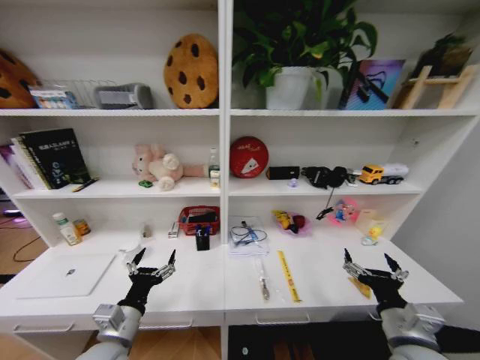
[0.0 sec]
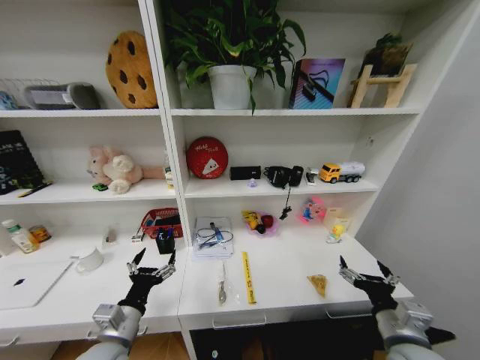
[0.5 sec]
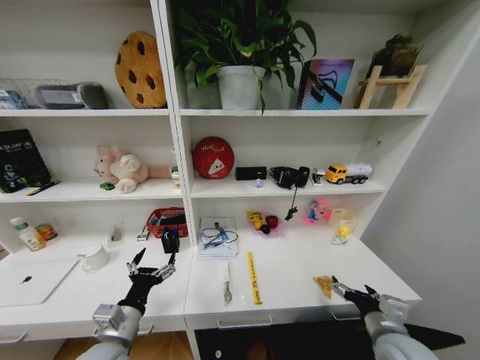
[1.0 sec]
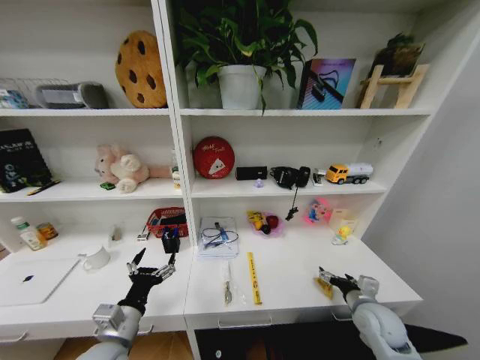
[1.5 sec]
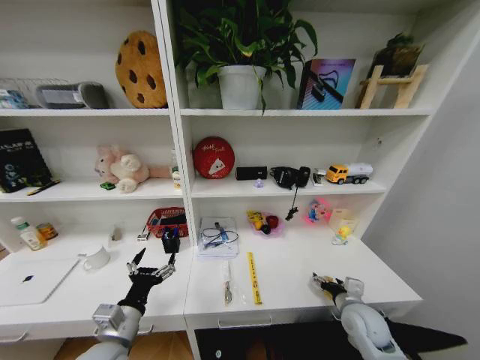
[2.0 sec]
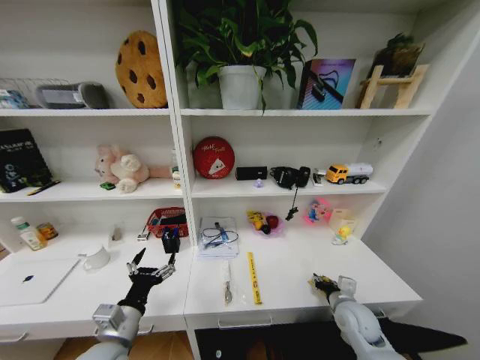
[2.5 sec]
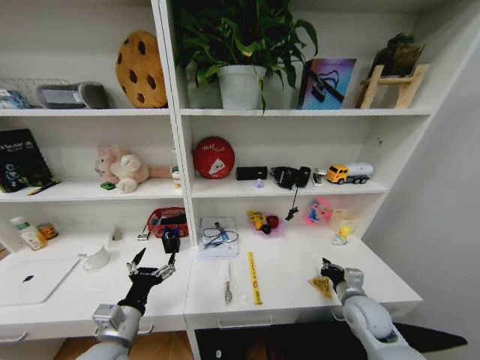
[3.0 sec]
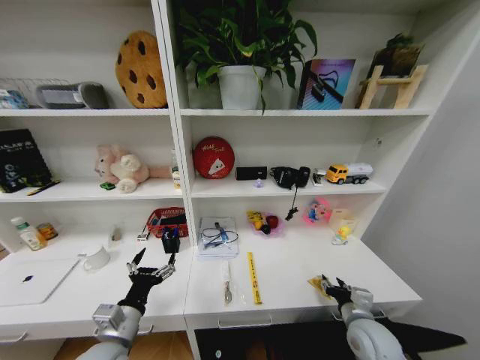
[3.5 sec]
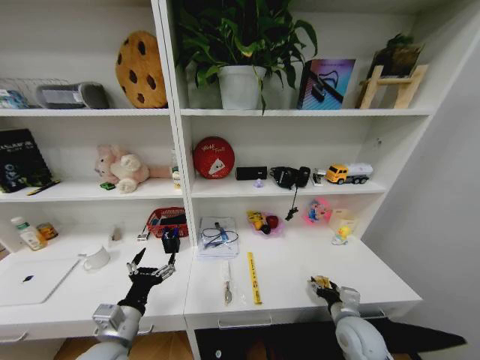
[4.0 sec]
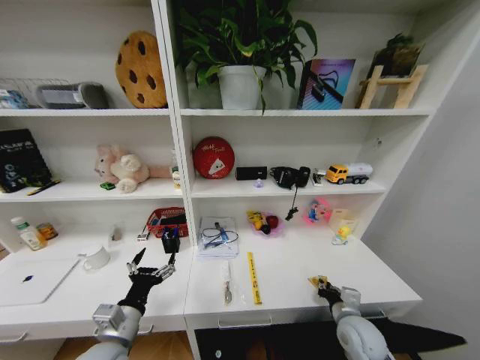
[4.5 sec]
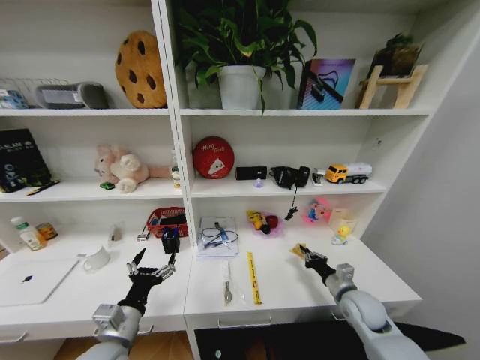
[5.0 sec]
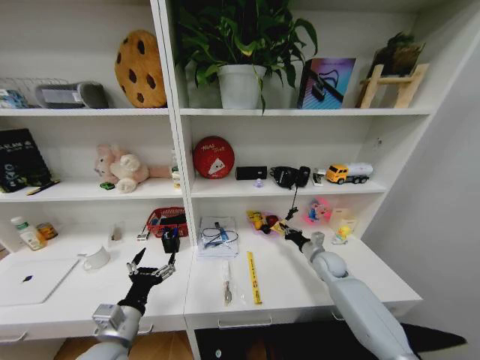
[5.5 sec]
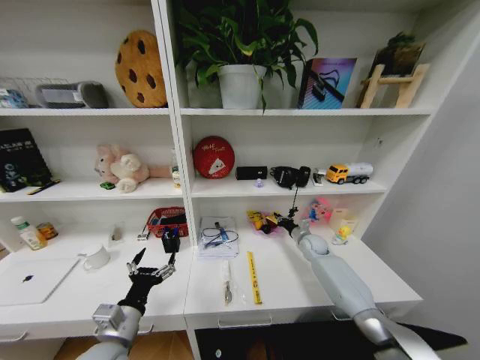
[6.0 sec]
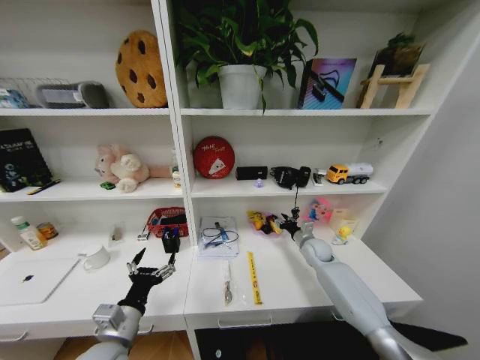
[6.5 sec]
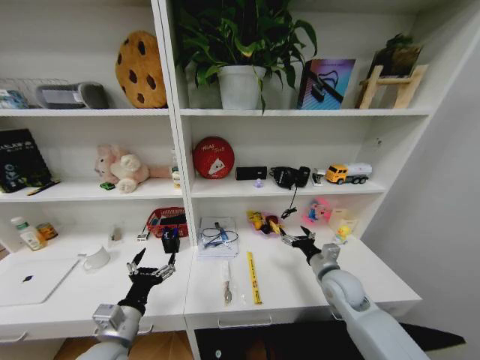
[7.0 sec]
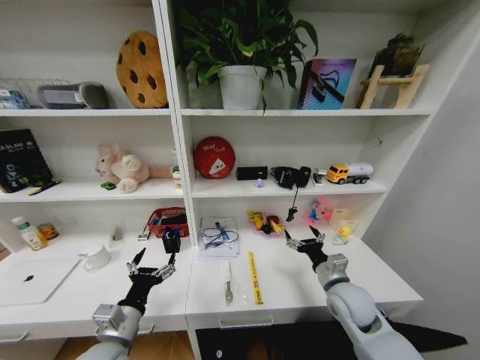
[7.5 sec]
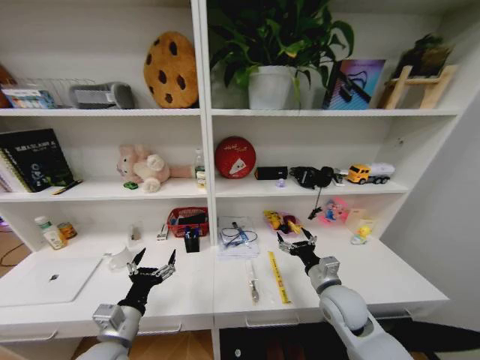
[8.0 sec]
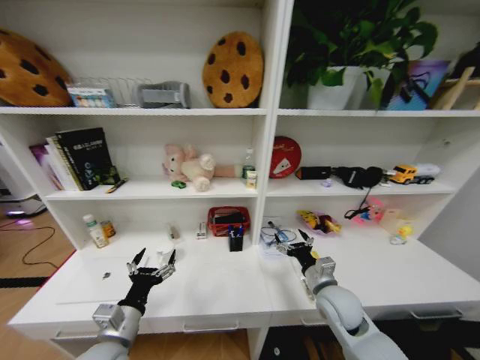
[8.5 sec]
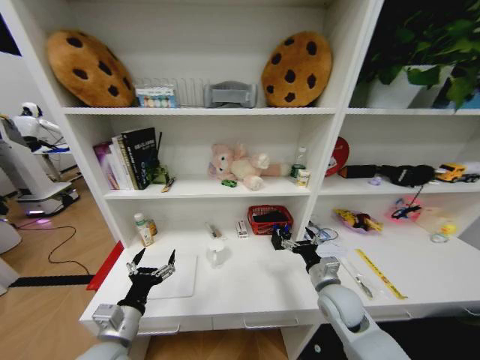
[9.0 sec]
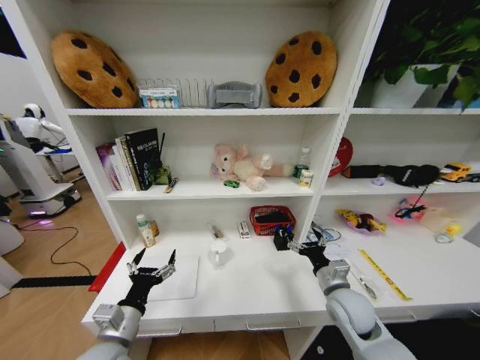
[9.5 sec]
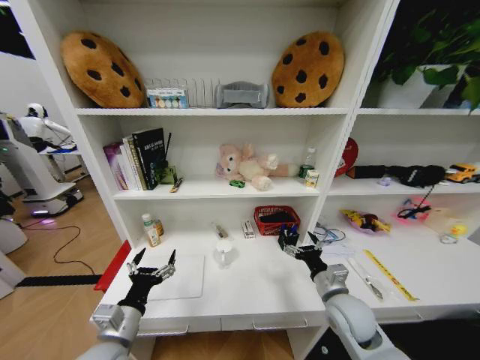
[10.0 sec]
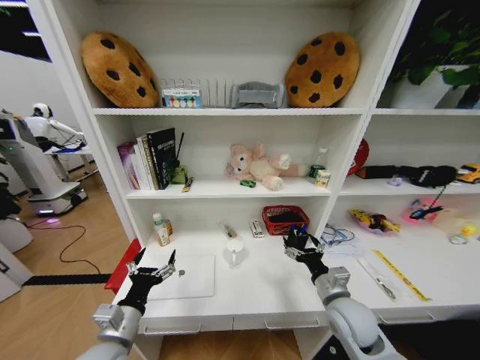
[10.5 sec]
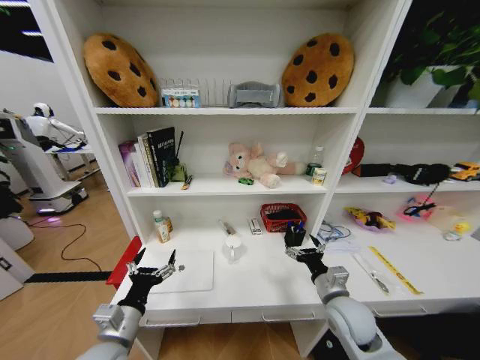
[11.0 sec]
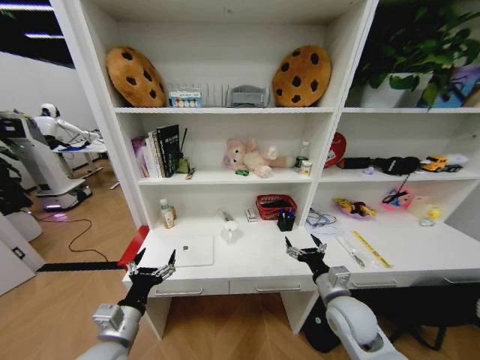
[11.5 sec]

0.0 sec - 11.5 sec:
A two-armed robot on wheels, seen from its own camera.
Task of the whole recording: Organize the objects on the table.
0.0 sec - 2.0 sec: The right gripper travels forward and downward by about 15 cm.
2.0 sec - 4.0 sec: The right gripper closes and opens again.
4.0 sec - 6.0 sec: The right gripper goes roughly 30 cm forward, and closes its fingers.
6.0 sec - 7.5 sec: The right gripper heads backward, covering roughly 25 cm, and opens up.

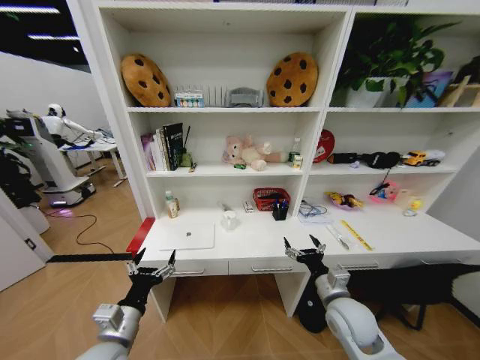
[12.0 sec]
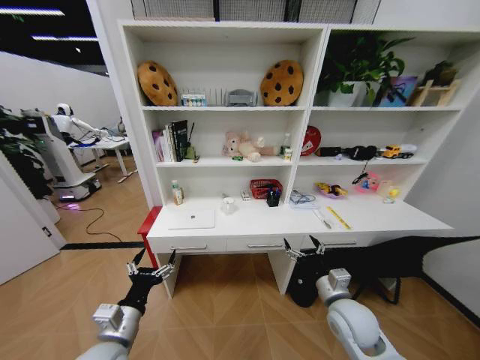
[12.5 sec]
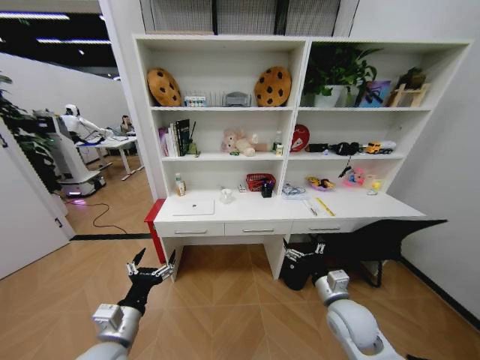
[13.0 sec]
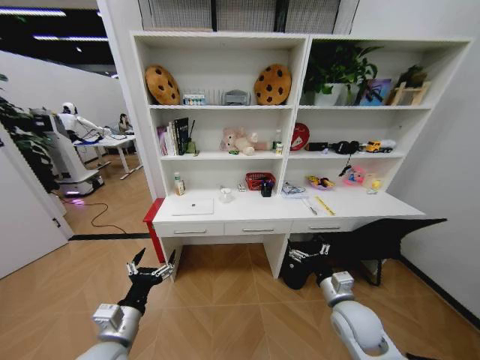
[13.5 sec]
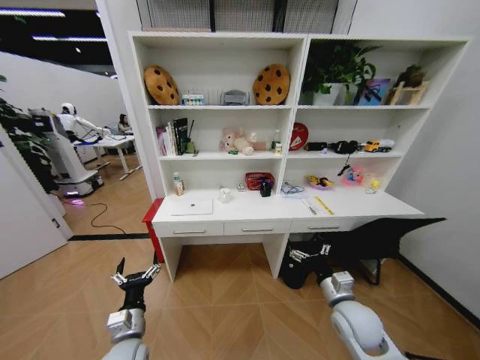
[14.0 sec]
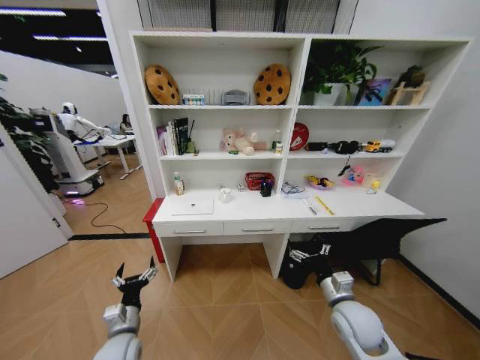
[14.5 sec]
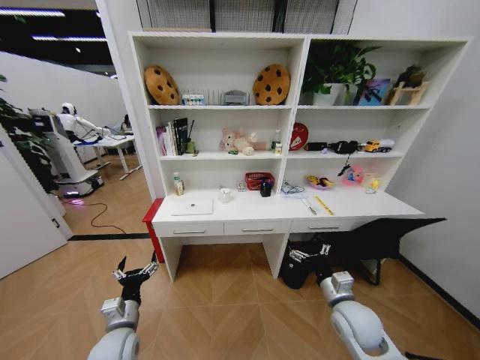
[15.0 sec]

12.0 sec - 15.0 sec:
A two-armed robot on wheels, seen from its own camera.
Task of the whole recording: Organize the objects on the table.
13.5 sec - 15.0 sec: The left gripper travels downward by about 10 cm.

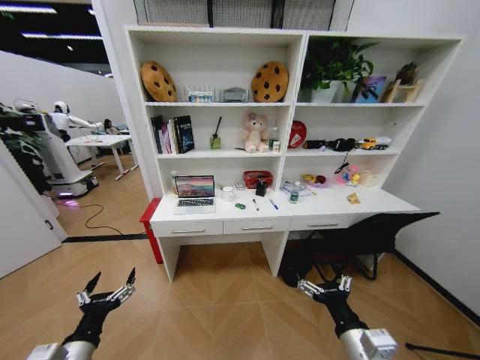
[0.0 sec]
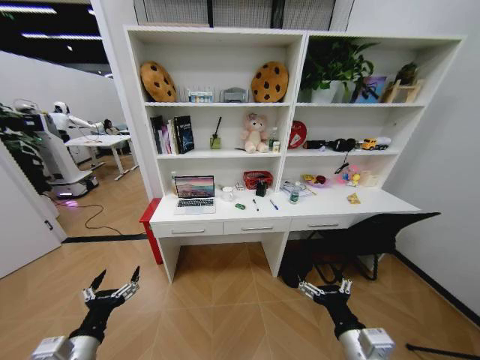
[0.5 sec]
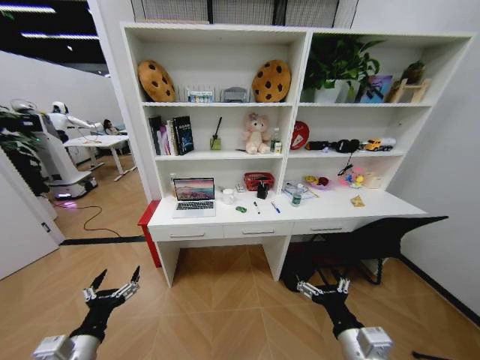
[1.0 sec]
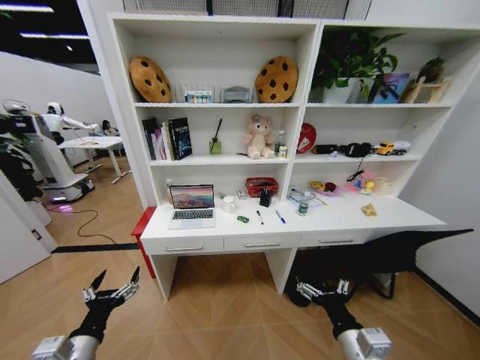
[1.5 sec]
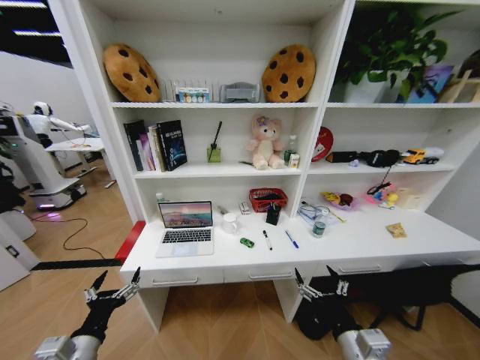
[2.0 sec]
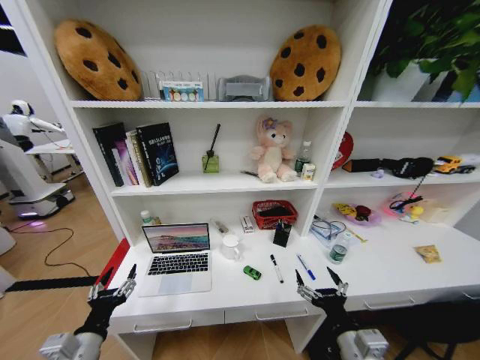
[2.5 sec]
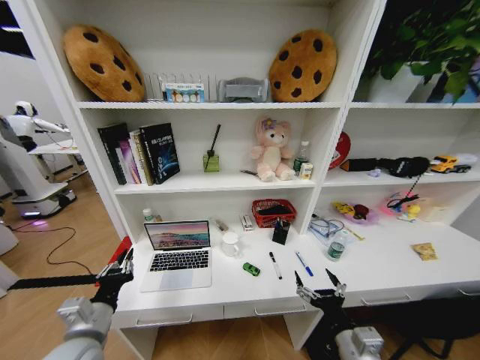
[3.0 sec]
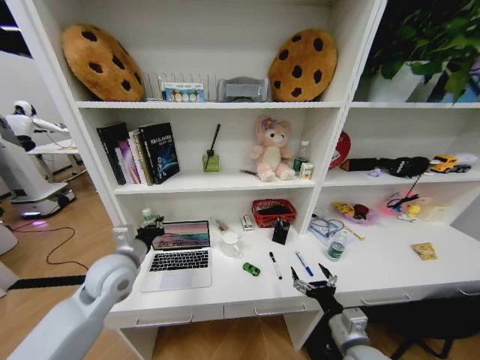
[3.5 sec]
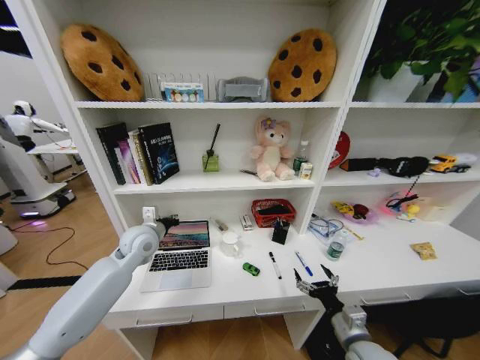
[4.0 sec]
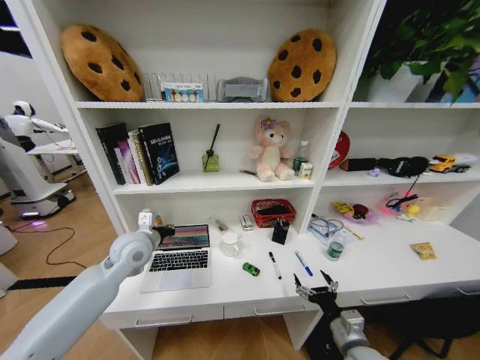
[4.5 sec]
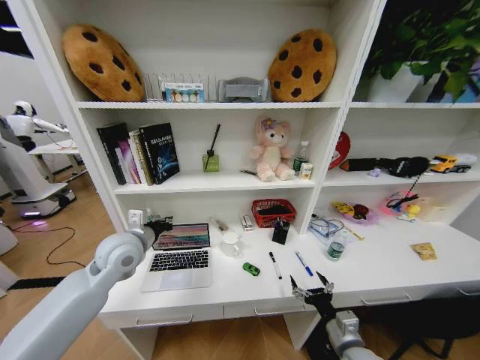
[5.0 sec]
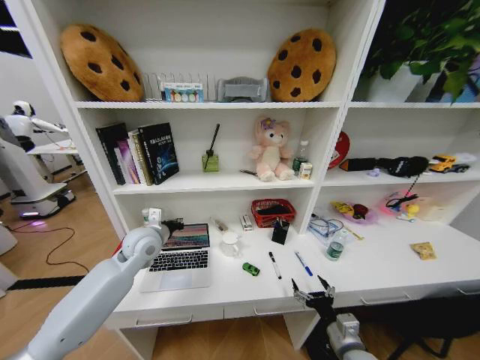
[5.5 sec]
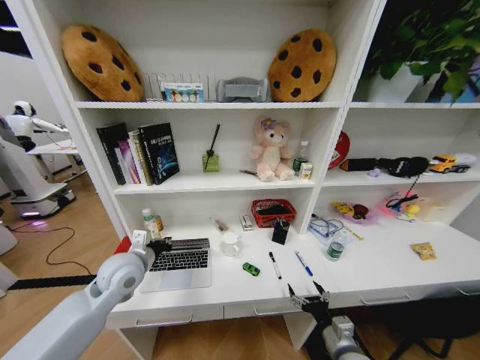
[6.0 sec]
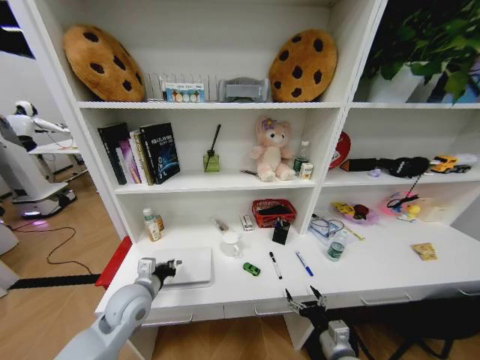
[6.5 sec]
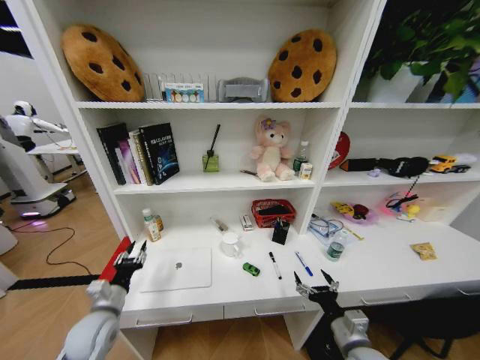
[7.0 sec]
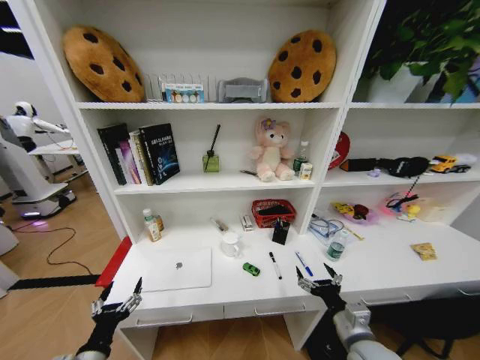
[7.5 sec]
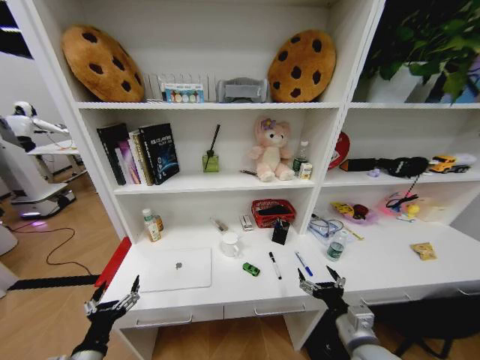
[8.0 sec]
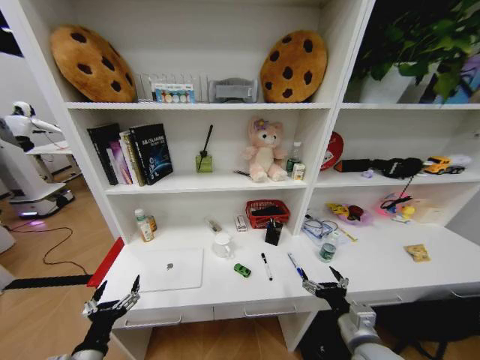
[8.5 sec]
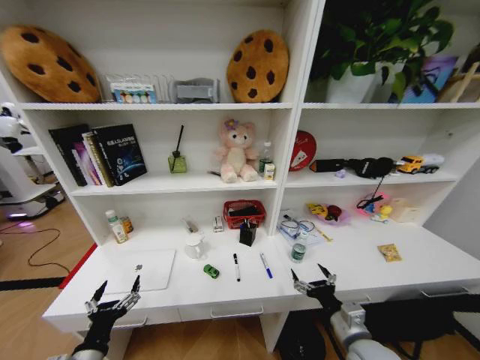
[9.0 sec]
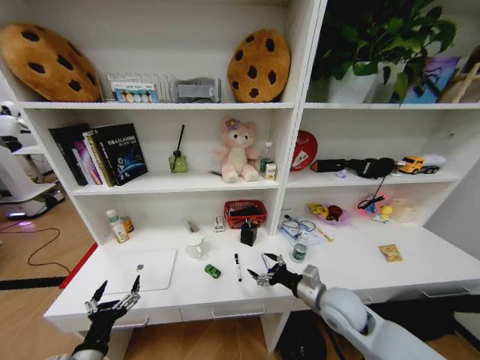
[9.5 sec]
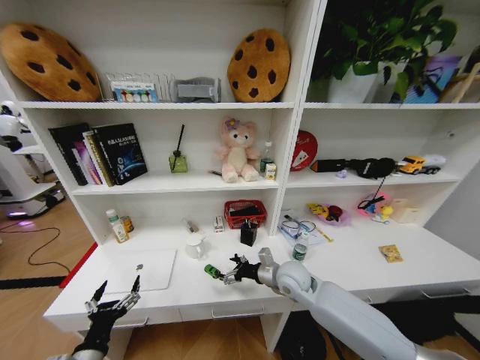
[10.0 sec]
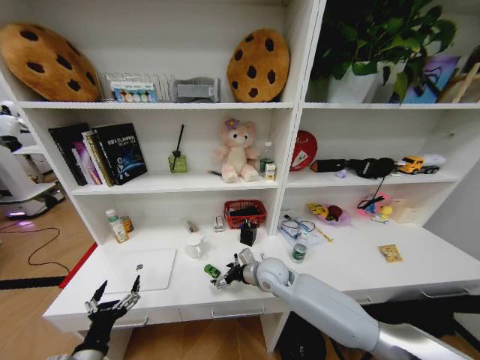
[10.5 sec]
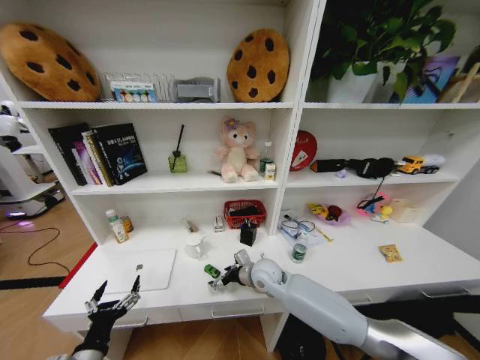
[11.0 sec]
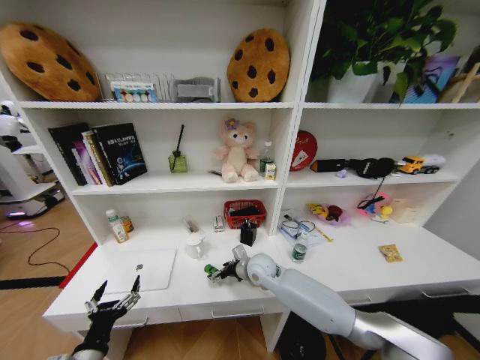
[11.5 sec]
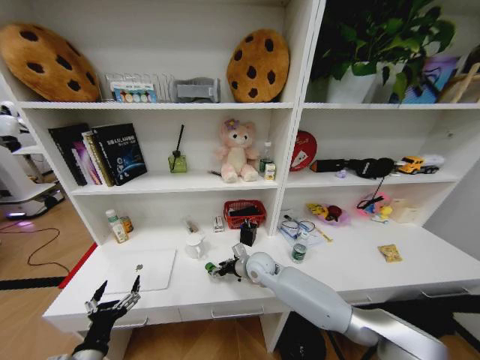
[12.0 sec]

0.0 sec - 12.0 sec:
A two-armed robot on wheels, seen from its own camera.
Task of the whole recording: Organize the objects on the table.
2.0 sec - 4.0 sec: The right gripper shifts some 5 cm forward, while the left gripper is displaced forward by approximately 30 cm, and closes its fingers.
4.0 sec - 6.0 sec: The right gripper shifts by roughly 5 cm. The left gripper goes forward and backward, some 10 cm each way, reversing 2 times.
6.0 sec - 8.0 sec: The left gripper is displaced backward and downward by some 25 cm, and opens its fingers, while the right gripper is displaced upward by some 10 cm.
8.0 sec - 10.0 sec: The right gripper is displaced forward and to the left by about 25 cm.
10.0 sec - 12.0 sec: The right gripper heads to the left and forward, covering some 10 cm.
